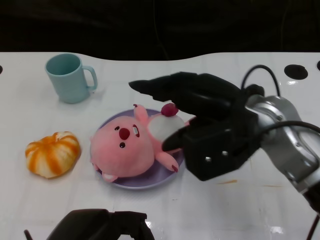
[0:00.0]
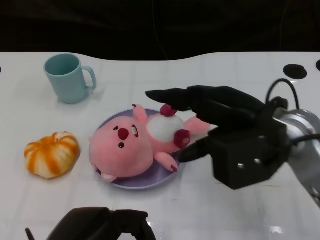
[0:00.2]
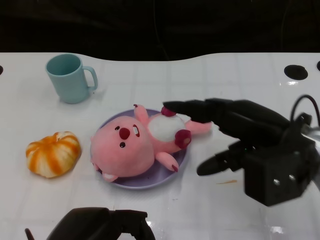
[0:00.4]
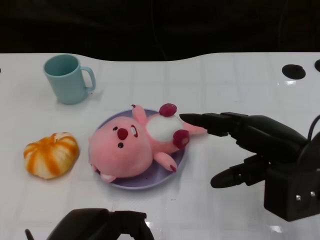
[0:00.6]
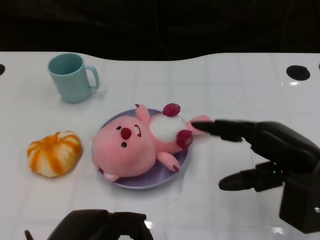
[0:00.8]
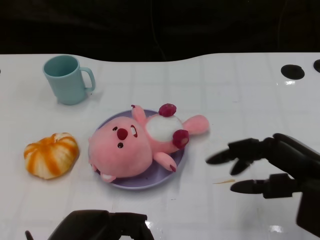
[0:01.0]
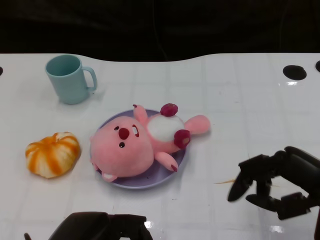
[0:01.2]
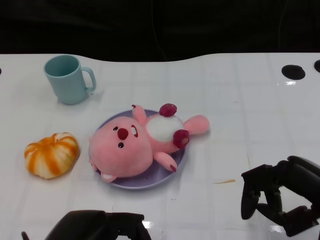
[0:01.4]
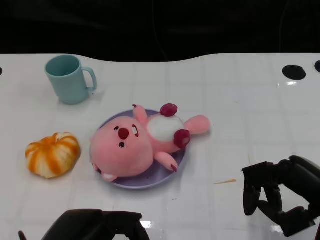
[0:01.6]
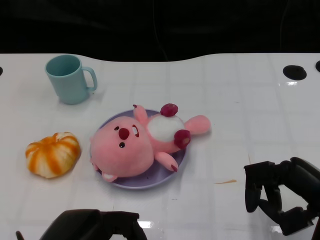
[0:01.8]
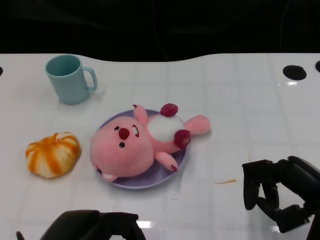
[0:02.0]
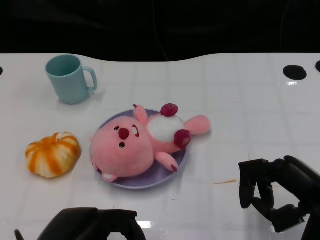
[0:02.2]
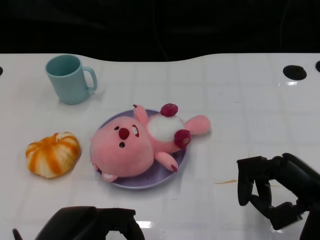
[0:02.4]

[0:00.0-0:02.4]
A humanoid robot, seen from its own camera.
Task of the whole recording: Pick up the doll on the other side of the plate and place it into the plate.
0:00.0 to 0:01.2: The right hand is displaced to the right and backward by approximately 15 cm.
0:01.2 to 0:02.4: There are only small adjustments of the hands.

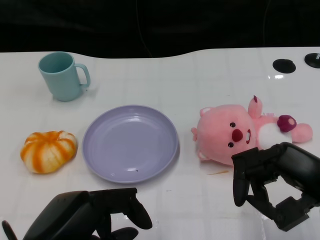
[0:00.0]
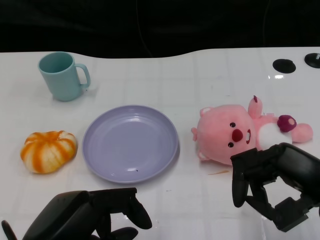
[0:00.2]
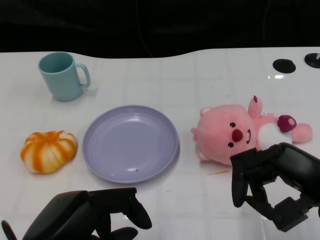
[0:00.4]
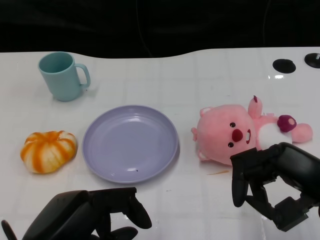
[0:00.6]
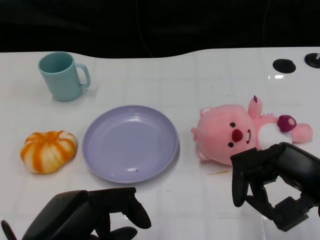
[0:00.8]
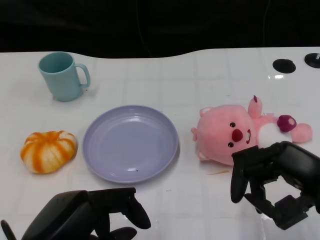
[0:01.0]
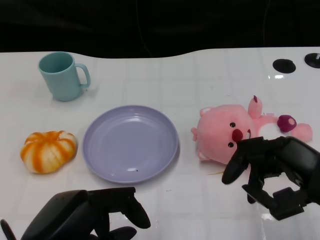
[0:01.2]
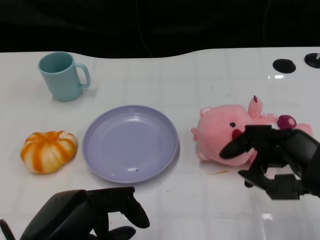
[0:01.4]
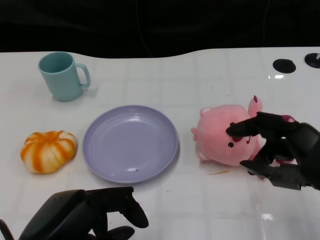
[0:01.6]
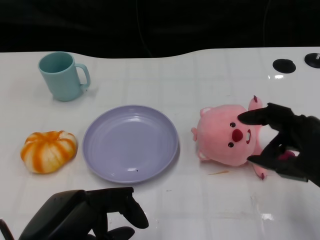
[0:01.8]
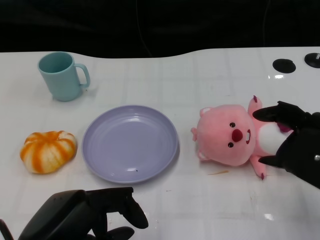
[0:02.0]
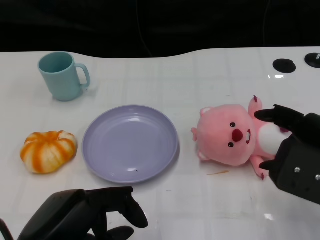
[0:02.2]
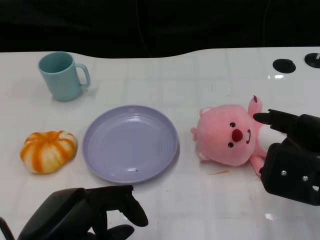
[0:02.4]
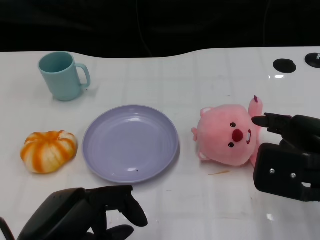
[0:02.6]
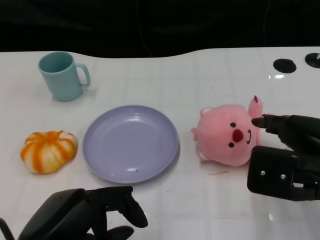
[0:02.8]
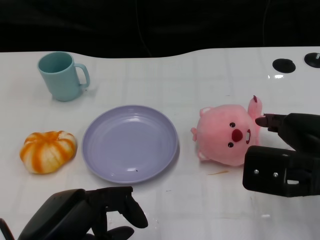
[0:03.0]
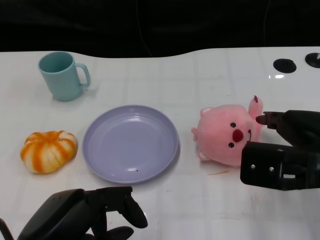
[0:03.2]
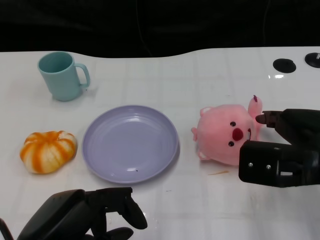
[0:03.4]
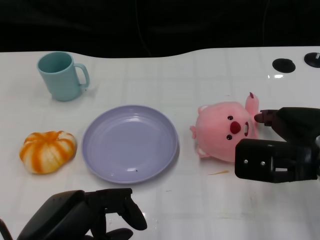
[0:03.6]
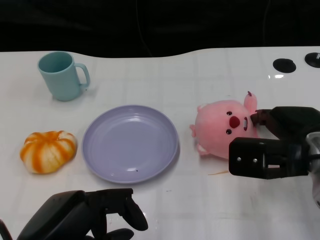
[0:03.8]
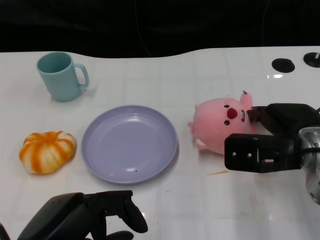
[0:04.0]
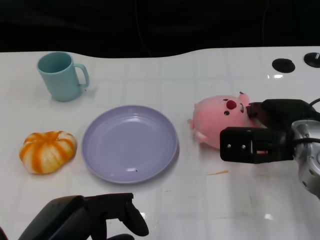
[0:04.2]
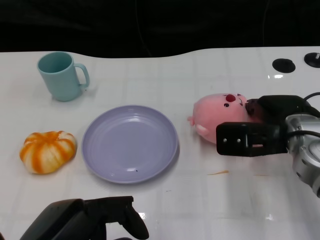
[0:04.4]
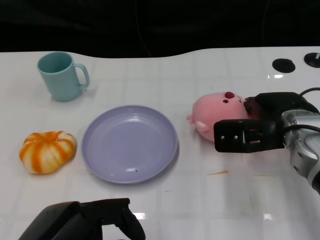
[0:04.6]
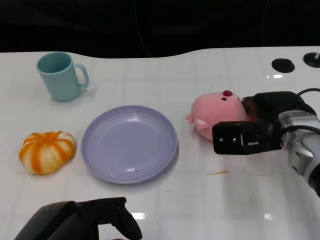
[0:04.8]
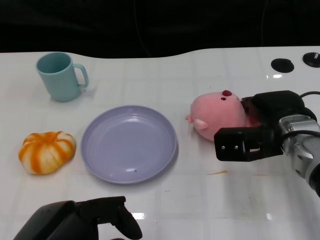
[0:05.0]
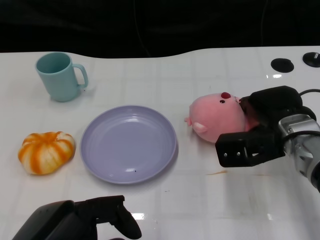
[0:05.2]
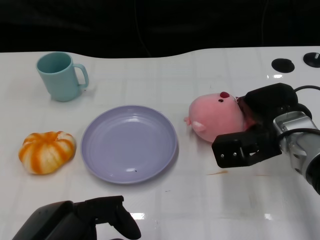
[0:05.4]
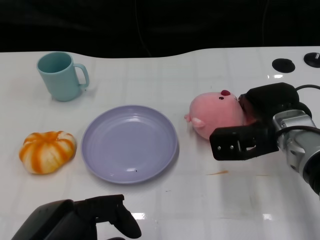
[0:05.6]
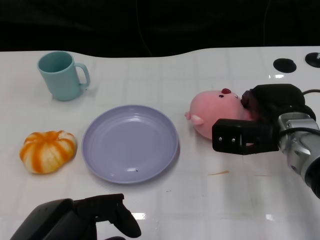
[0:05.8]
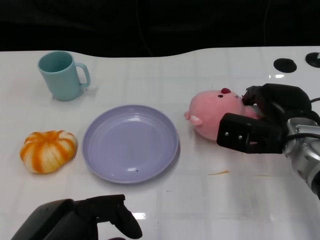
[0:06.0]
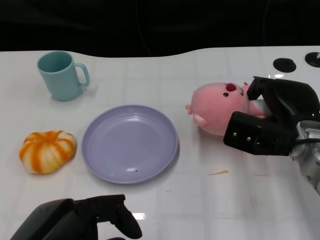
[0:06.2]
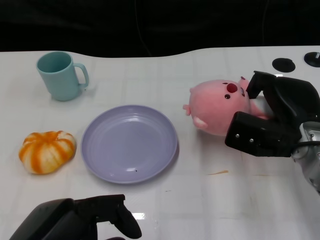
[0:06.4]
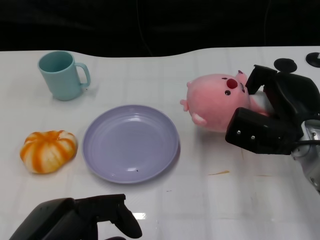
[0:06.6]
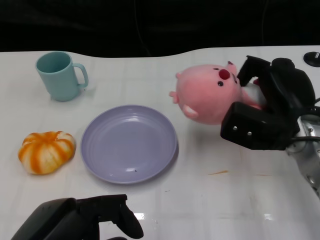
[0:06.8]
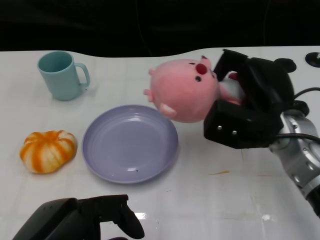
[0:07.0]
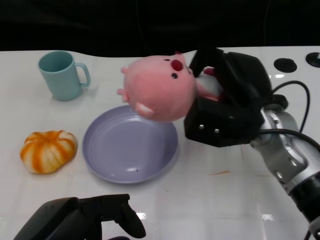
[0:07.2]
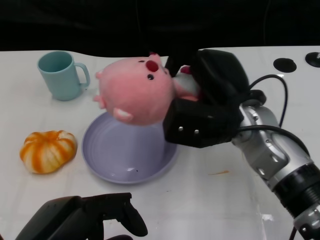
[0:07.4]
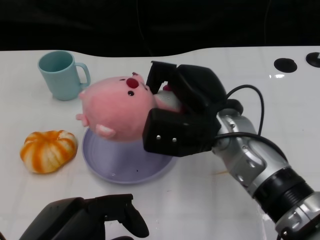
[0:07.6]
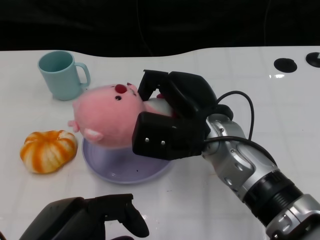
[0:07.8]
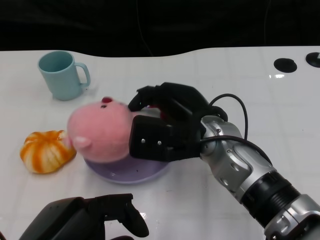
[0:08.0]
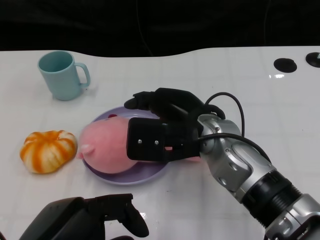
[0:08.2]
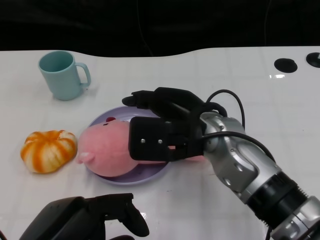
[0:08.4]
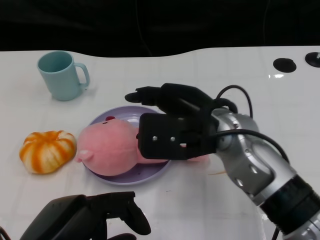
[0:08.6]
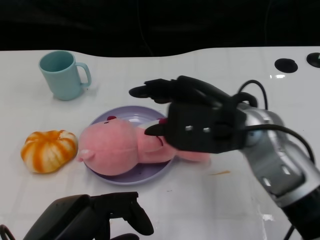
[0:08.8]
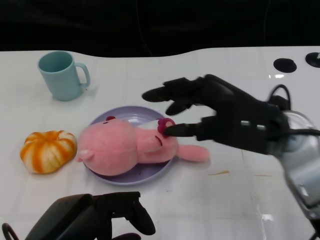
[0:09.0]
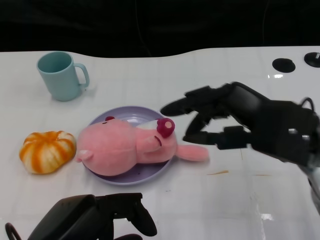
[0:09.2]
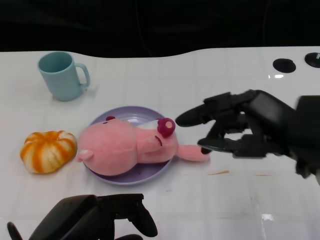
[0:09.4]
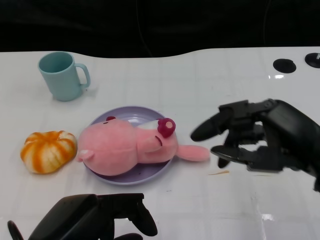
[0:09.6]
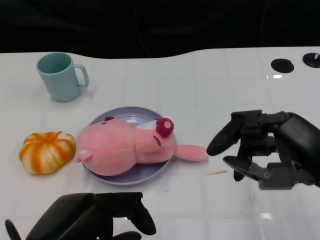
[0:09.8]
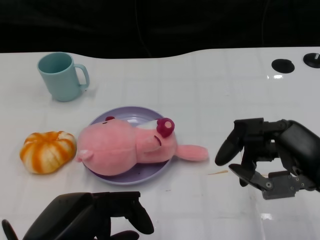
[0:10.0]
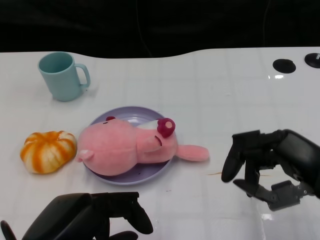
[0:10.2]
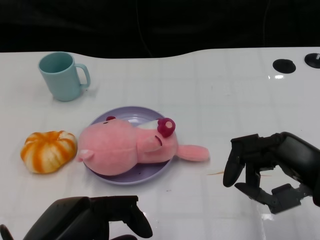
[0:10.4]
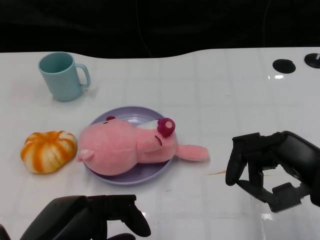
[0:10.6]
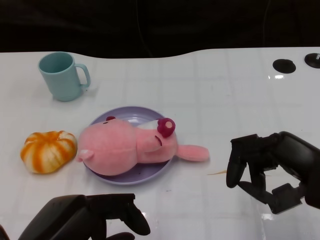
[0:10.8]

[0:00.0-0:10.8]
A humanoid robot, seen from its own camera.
Task of the whole recording: Pick up the doll on the other side of the plate and place it into the plate.
Step, 0:01.0 to 0:06.8: Grasp the pink doll with the right gripper.
Step, 0:07.0 to 0:08.8: Place the pink doll into the plate with the right gripper.
0:03.0 to 0:04.6: The right hand moves forward, approximately 10 cm.
0:06.2 to 0:07.8: The right hand heads to the left, covering roughly 15 cm.
0:07.8 to 0:09.2: The right hand travels to the right by about 10 cm.
0:09.2 to 0:10.8: The right hand is displaced to the right and backward by some 10 cm.
